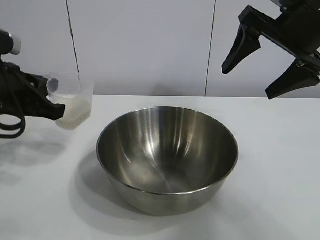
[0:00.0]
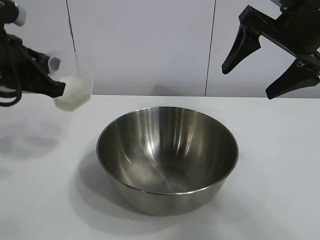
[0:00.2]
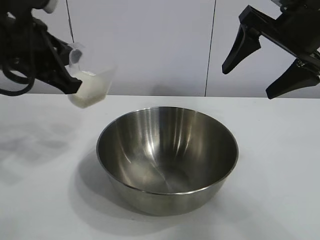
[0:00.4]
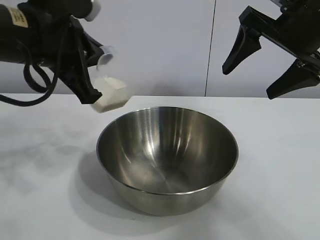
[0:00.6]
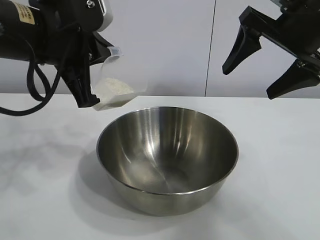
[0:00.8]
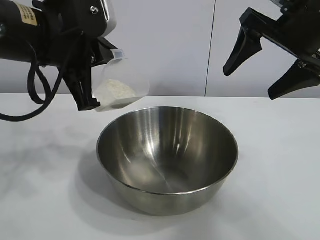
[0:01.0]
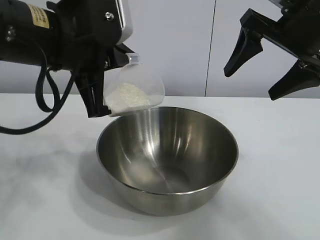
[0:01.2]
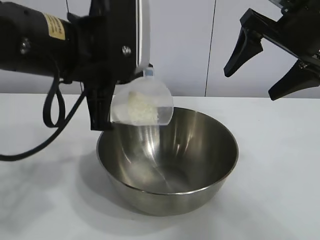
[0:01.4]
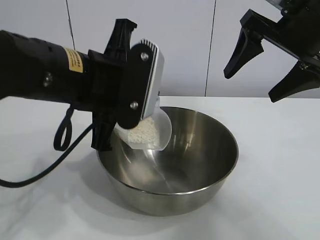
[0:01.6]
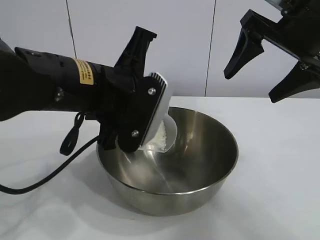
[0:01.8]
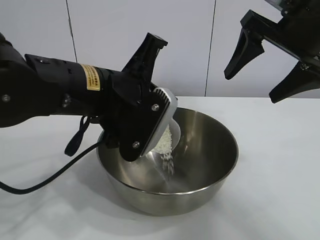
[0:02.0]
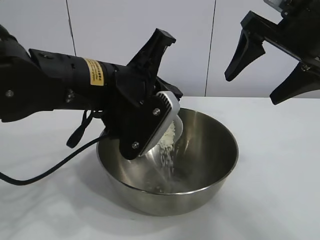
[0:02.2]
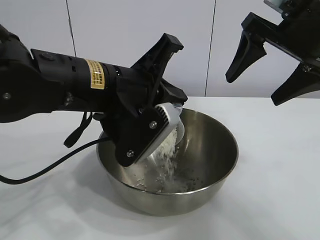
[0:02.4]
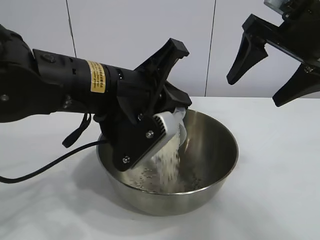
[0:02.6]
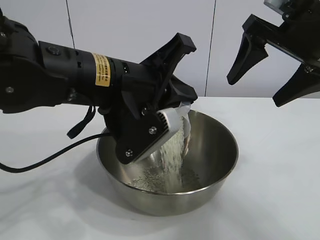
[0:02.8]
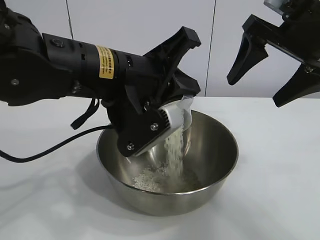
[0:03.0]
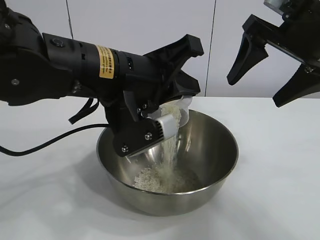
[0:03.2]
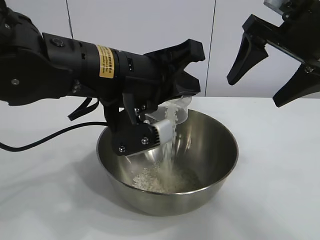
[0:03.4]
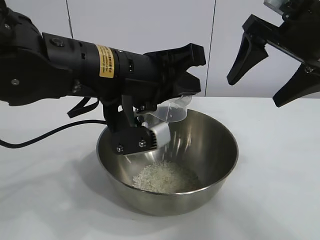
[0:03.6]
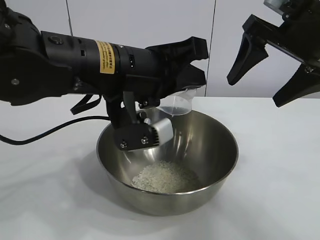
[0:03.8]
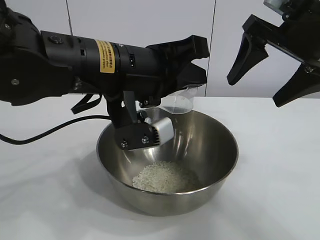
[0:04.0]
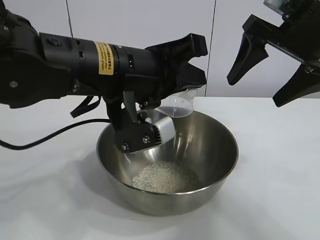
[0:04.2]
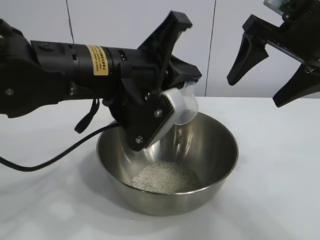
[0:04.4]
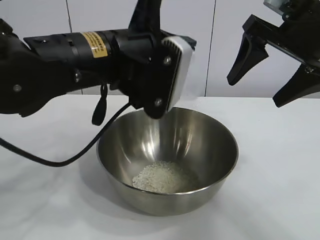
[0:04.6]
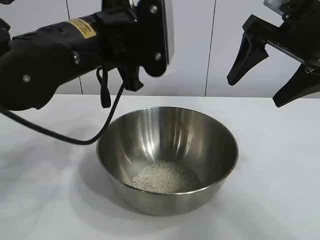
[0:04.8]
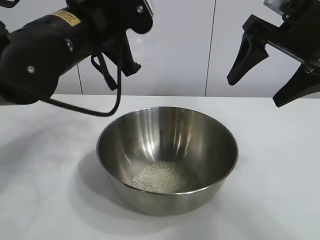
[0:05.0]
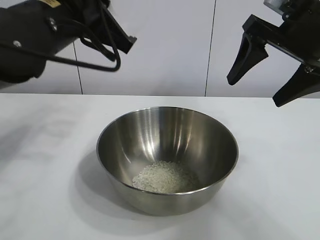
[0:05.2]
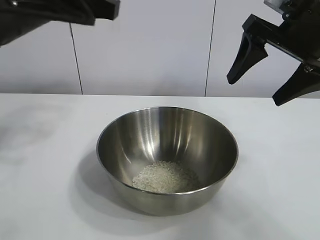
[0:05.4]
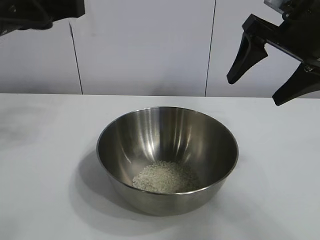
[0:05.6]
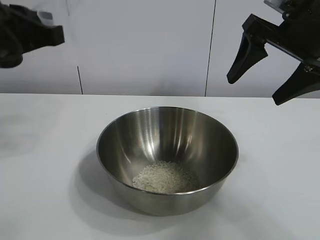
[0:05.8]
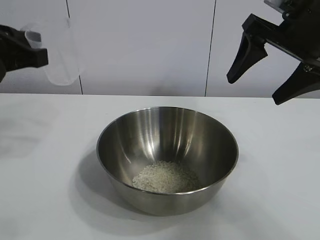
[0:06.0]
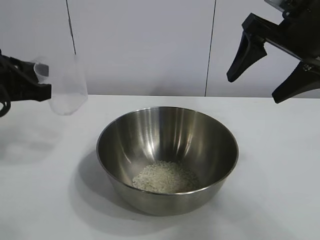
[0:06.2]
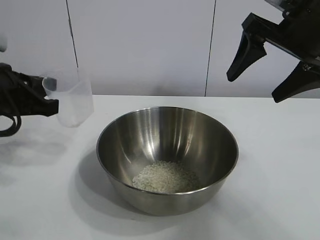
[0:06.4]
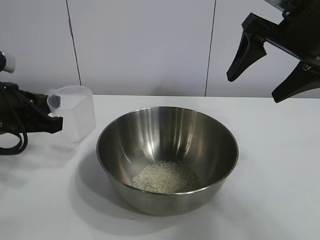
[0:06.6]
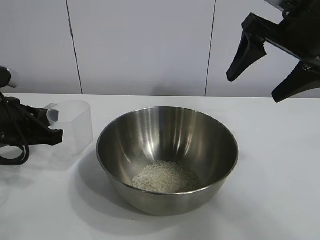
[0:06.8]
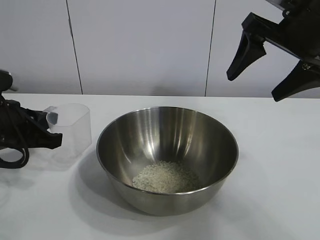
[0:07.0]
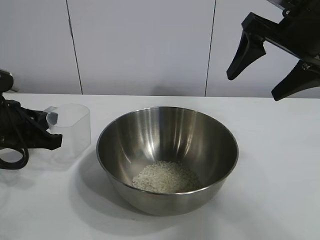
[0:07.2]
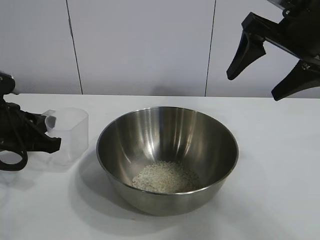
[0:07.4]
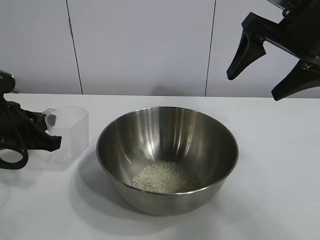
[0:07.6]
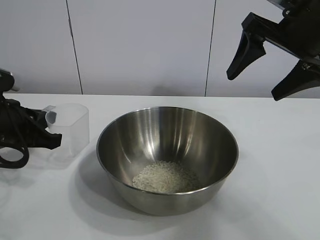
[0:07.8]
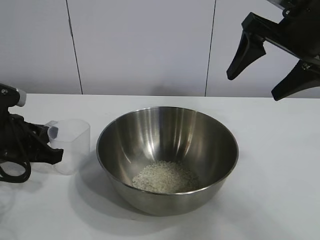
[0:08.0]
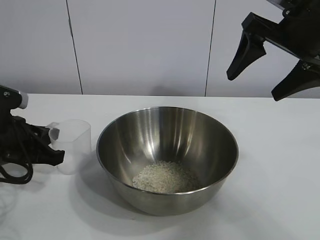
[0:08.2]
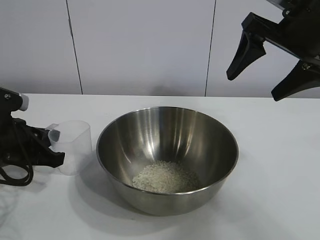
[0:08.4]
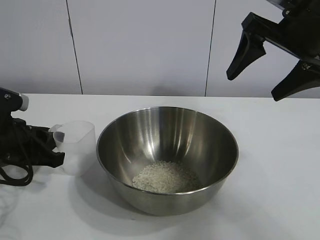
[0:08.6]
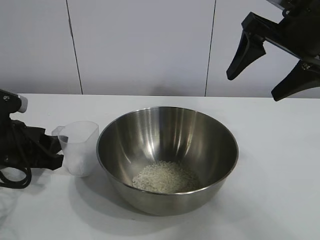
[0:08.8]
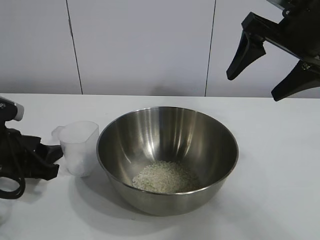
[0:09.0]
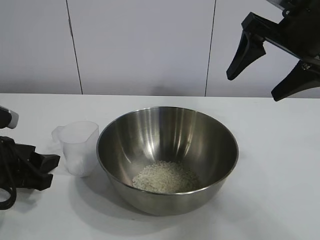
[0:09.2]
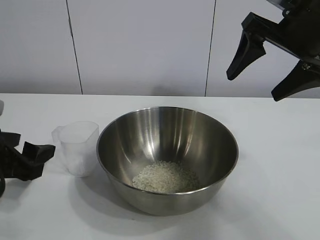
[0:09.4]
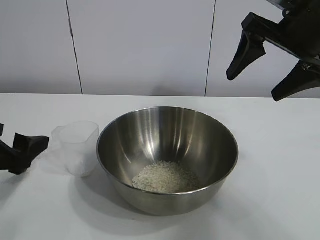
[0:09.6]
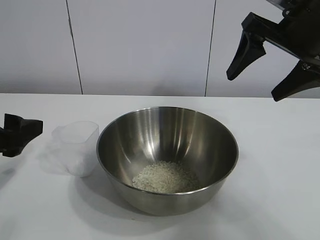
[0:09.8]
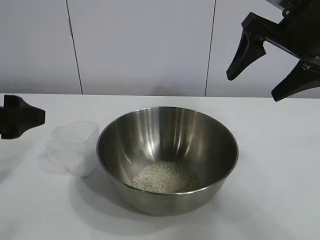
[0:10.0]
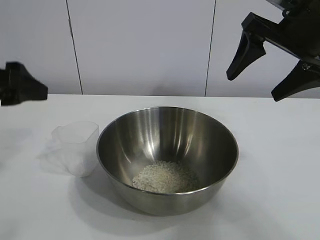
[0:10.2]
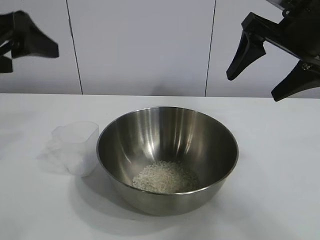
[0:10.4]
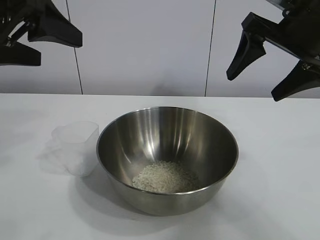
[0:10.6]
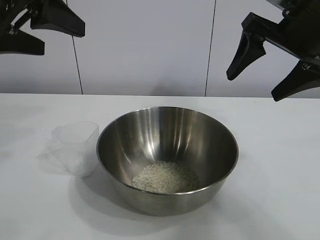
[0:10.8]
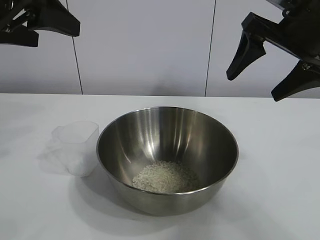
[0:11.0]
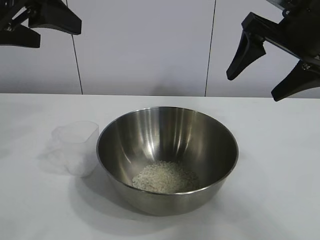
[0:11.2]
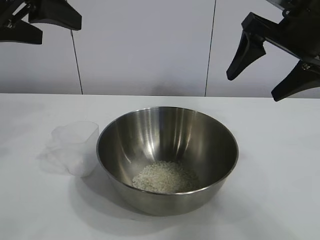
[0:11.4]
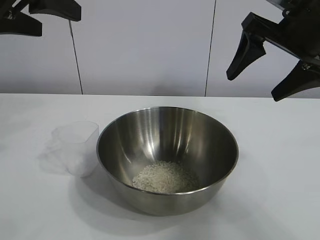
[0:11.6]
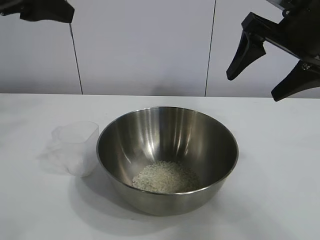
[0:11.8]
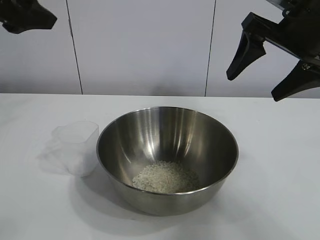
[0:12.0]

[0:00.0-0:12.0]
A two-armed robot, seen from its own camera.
Task of the whole recording: the right gripper grasp the rice container and place it in the center of the table, the left gripper grasp the rice scoop and pour the rice into the rice container.
Step, 0:00.0 to 0:03.8: Pour the rice from the cup into the bowl with the left gripper.
Step, 0:04.2 to 0:08.6: Place the cup on the table with the left gripper.
